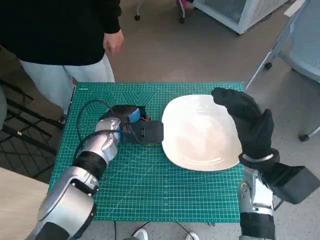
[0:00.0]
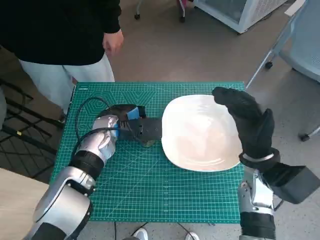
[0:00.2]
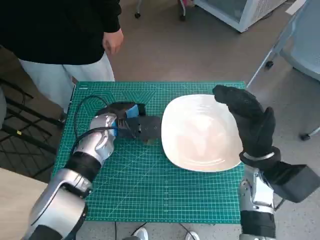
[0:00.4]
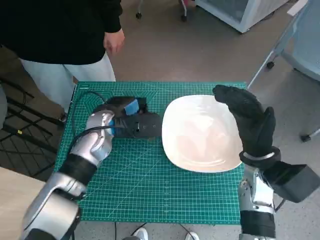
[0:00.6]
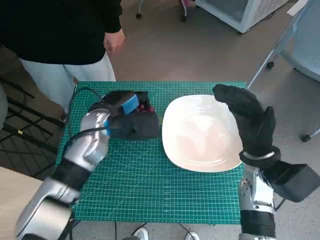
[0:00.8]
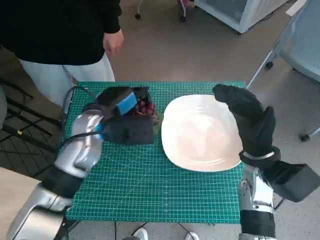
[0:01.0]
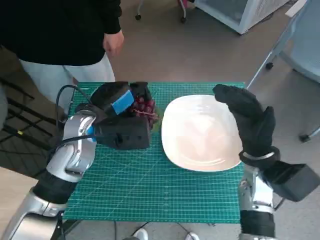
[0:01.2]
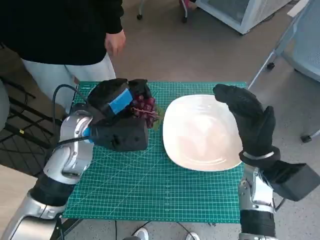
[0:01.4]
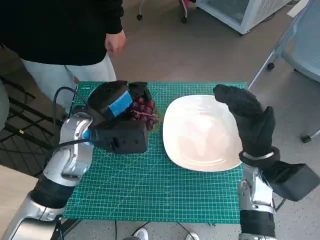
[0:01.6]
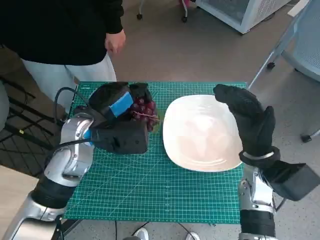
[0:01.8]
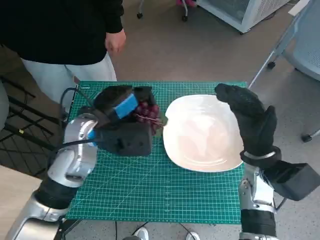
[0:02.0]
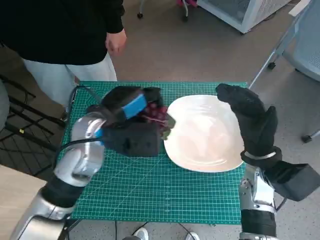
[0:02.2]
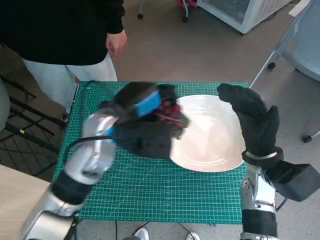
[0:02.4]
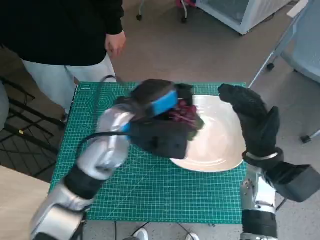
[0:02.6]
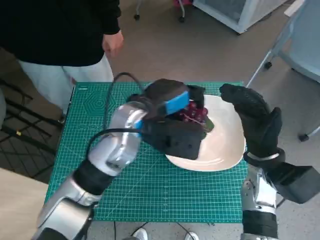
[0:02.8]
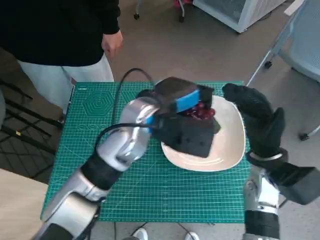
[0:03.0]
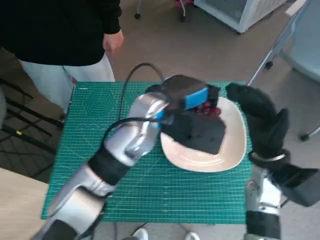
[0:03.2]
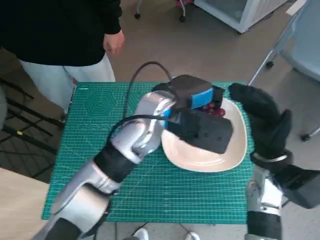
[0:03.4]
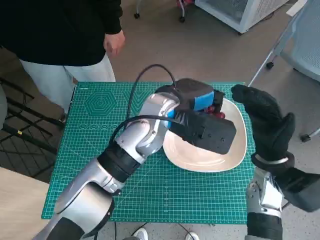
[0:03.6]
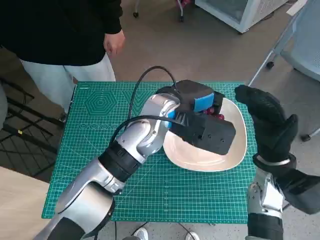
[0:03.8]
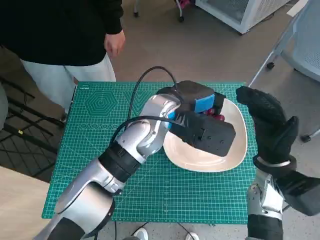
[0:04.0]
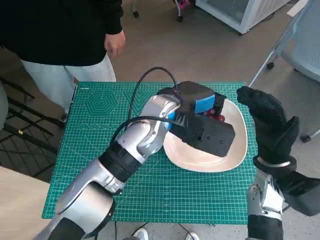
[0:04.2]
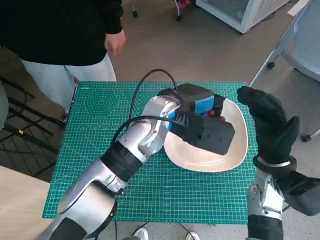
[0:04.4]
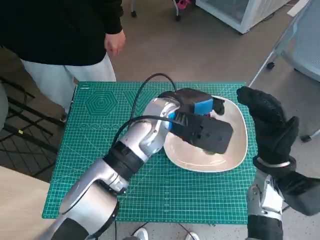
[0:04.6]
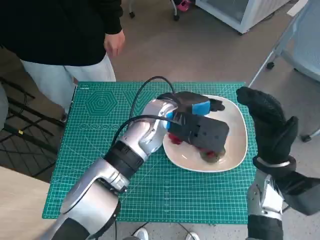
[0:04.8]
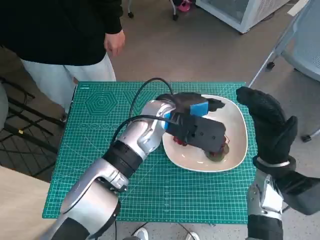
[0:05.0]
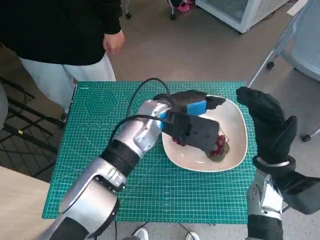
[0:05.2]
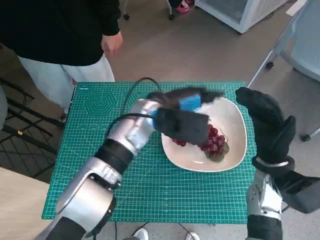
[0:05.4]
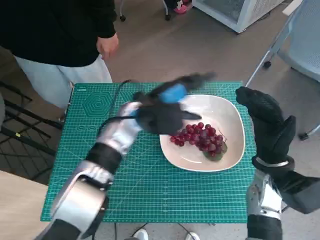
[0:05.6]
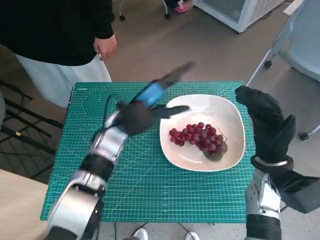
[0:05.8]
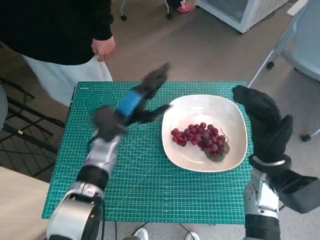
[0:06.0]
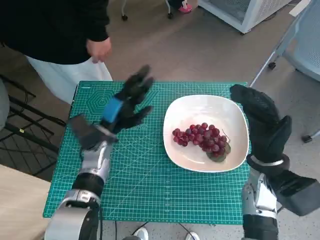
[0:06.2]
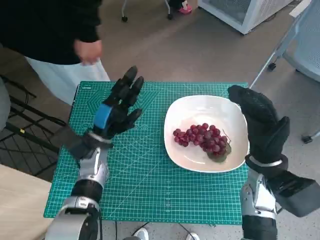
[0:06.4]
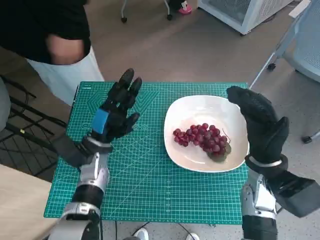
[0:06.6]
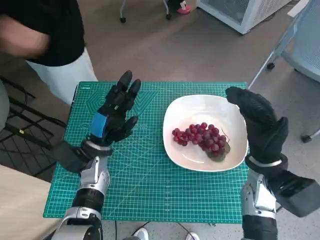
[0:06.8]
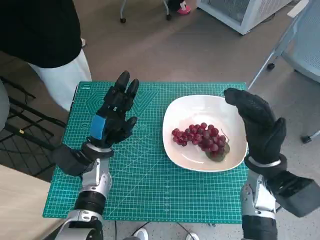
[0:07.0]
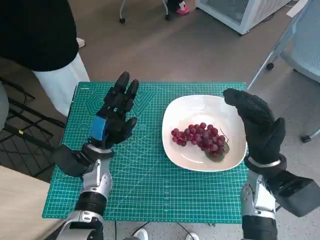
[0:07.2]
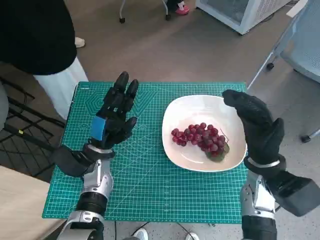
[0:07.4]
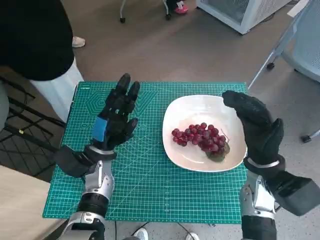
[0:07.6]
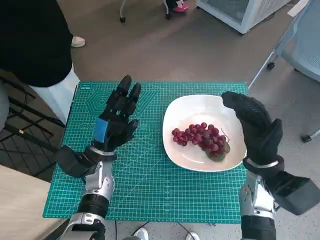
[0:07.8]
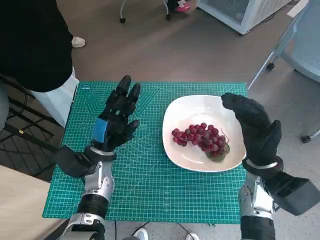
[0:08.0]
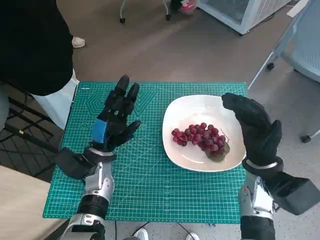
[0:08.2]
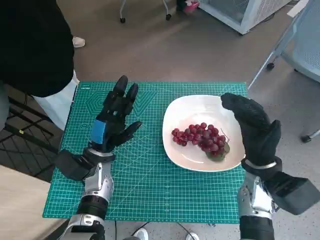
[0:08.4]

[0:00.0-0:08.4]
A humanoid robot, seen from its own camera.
Task of the whole recording: Pick up the grapes and put them on the plate.
Step, 0:00.0 to 0:05.0: Place the grapes in the plate with left hand.
0:00.0 to 0:01.4: The left hand travels upward and backward by approximately 10 cm.
0:01.4 to 0:02.8: The left hand travels to the right by some 10 cm.
0:02.8 to 0:04.2: The left hand is displaced to the right by approximately 5 cm.
0:04.2 to 0:05.6: The left hand shifts by about 5 cm.
0:05.6 to 0:07.0: The left hand travels to the left, downward and backward by some 15 cm.
0:07.0 to 0:08.4: Both hands stay about where they are.

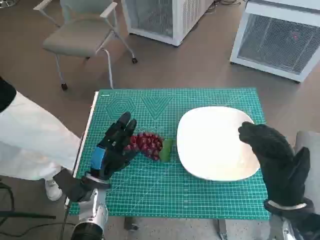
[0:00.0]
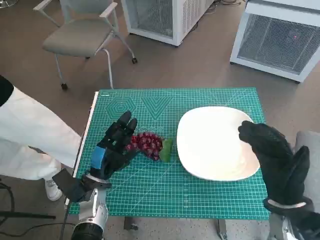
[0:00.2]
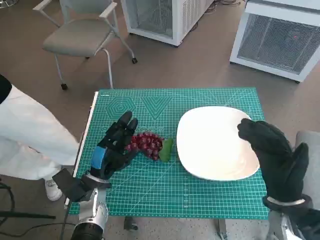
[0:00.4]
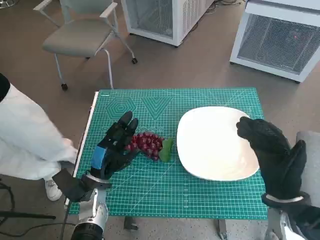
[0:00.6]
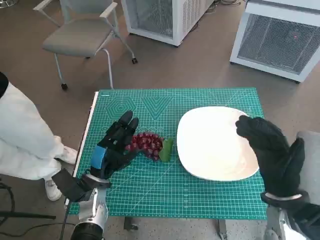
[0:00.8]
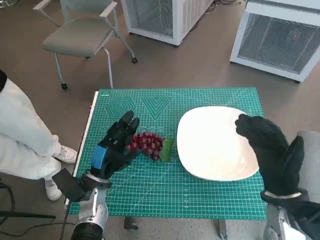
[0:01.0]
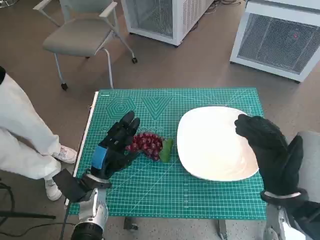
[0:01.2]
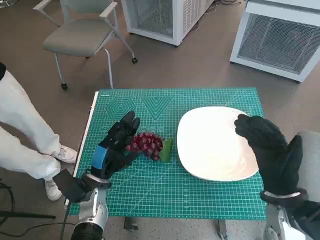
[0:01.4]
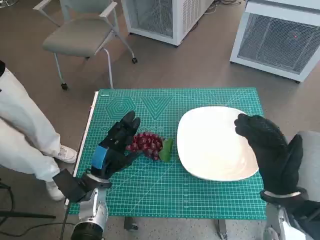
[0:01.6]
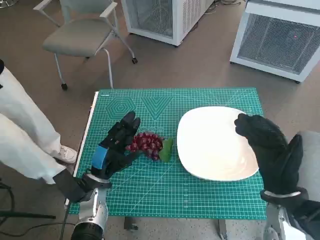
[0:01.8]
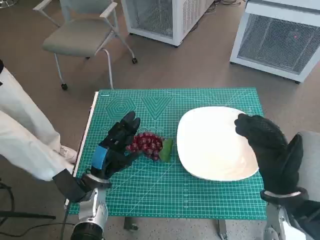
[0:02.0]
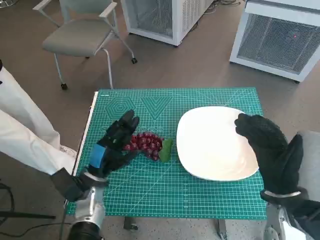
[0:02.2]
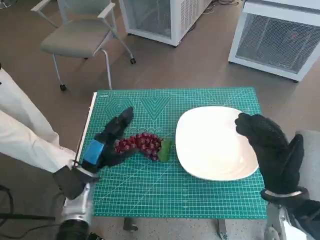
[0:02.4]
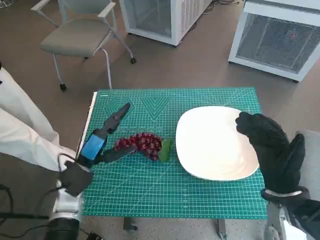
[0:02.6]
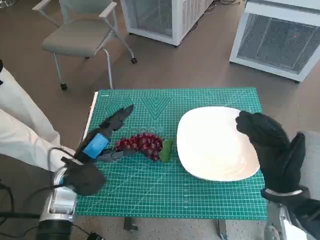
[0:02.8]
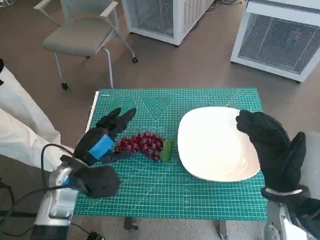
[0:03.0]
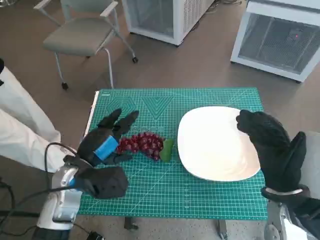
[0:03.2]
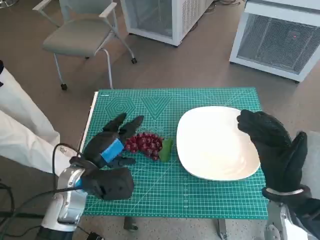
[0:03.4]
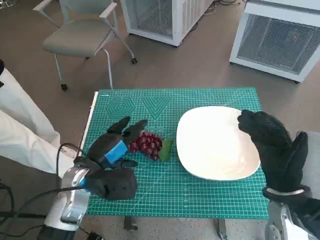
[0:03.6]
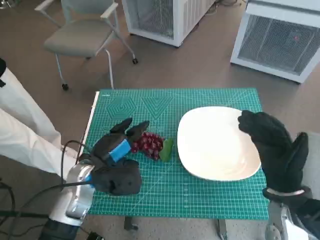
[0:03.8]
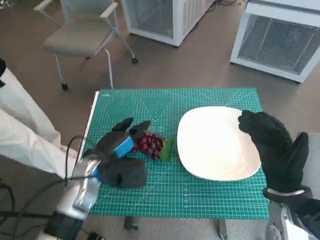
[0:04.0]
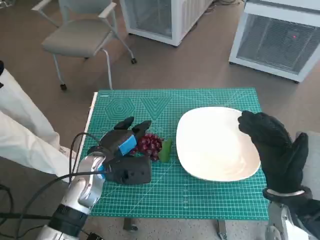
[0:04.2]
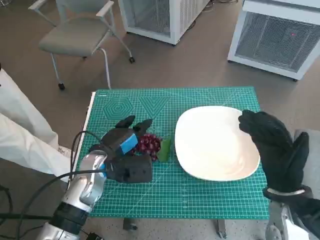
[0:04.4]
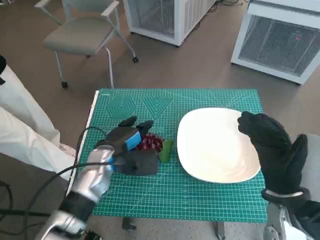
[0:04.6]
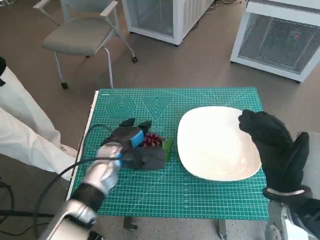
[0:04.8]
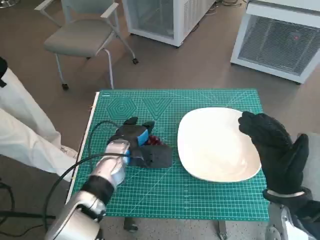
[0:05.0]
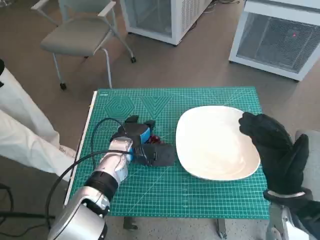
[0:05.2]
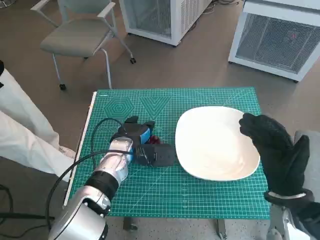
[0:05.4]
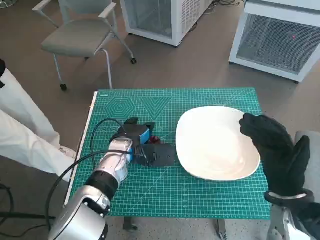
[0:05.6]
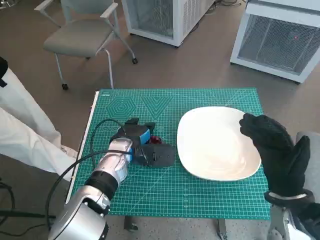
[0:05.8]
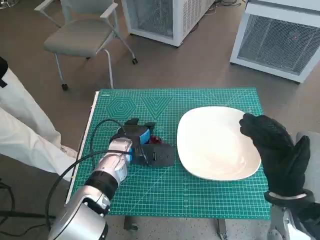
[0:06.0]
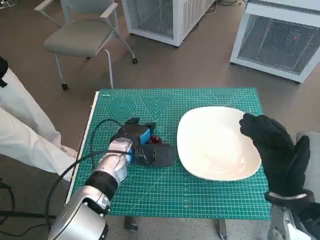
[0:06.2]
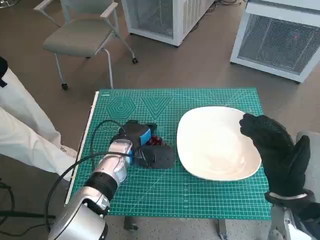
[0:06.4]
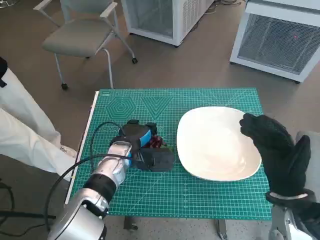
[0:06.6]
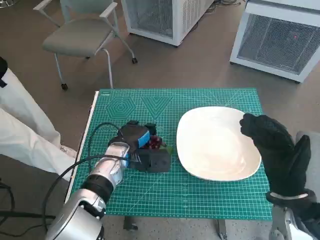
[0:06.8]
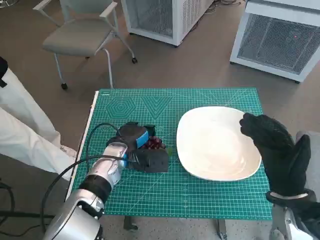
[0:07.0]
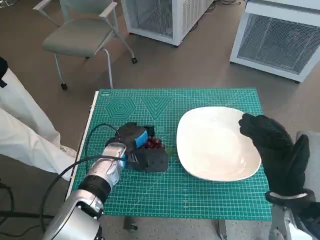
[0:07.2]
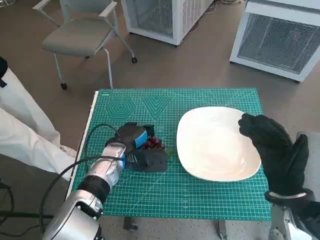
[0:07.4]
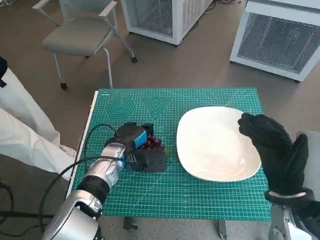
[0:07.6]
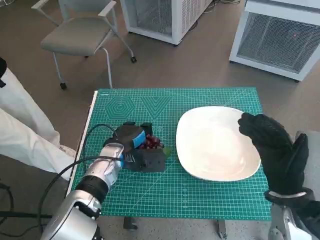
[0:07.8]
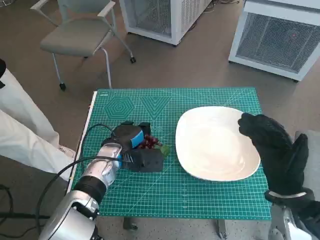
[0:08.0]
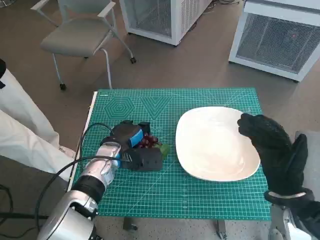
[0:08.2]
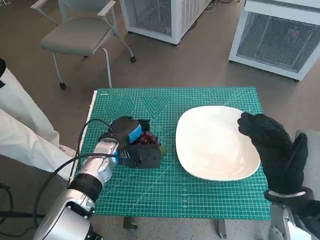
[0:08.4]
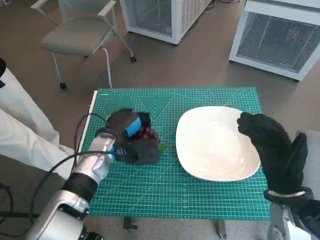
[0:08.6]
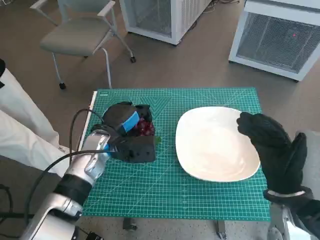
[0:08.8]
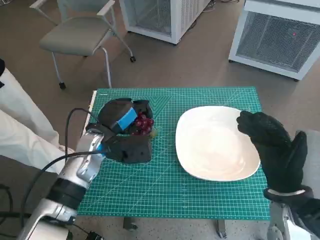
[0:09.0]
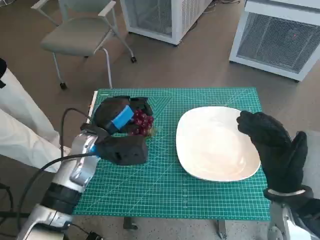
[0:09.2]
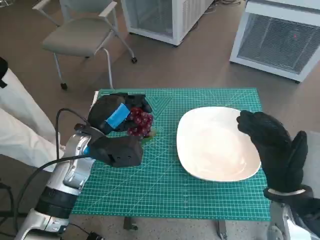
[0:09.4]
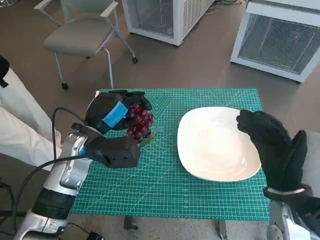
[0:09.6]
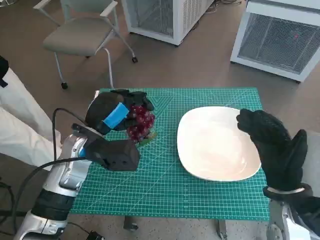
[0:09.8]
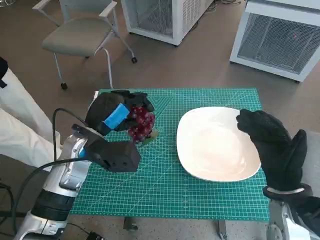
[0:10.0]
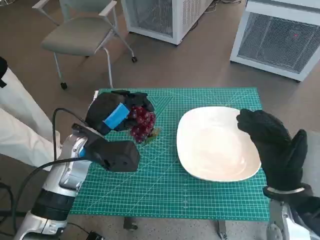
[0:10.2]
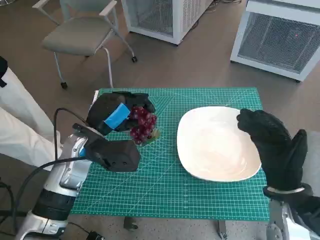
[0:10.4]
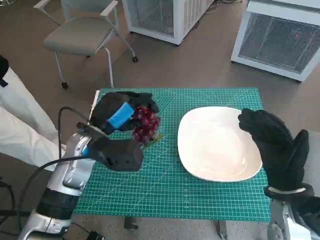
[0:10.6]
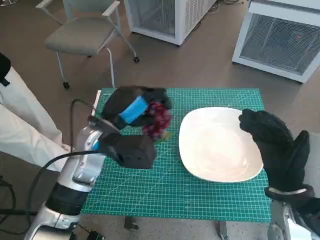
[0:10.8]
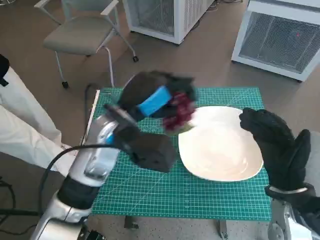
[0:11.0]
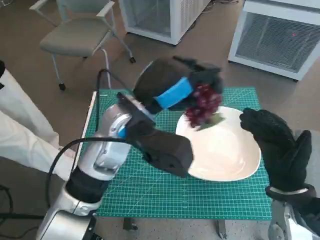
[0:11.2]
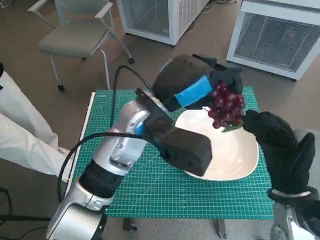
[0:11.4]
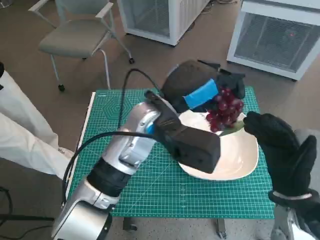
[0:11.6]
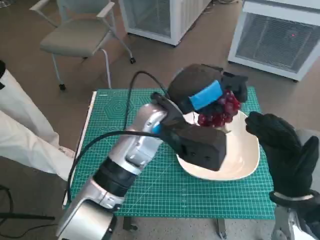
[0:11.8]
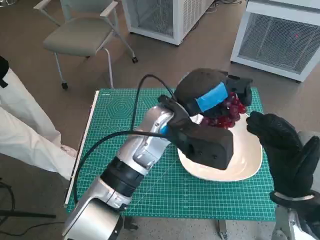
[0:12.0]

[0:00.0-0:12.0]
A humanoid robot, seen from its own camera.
Task of the whole recording: Pick up the grapes and put them on the plate.
Step, 0:00.0 to 0:07.4: Grasp the grapes with left hand.
0:01.6 to 0:03.0: The left hand is displaced upward by roughly 10 cm.
0:03.0 to 0:04.4: The left hand shifts by about 5 cm.
0:04.4 to 0:06.0: The left hand ends up roughly 5 cm from where it was.
0:06.0 to 0:07.6: The hands make only small movements.
0:07.6 to 0:09.0: The left hand goes roughly 5 cm upward.
0:09.0 to 0:10.4: The hands stay close to where they were, moving slightly.
0:10.4 to 0:12.0: The left hand goes about 15 cm to the right.

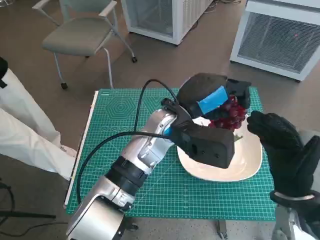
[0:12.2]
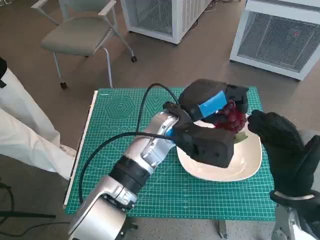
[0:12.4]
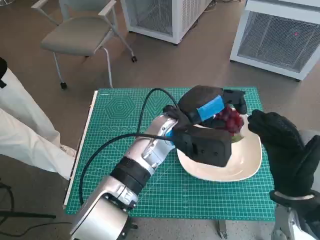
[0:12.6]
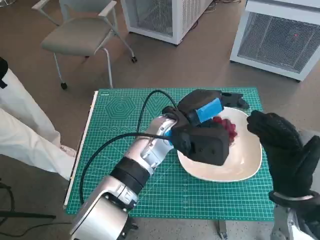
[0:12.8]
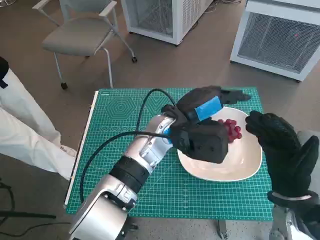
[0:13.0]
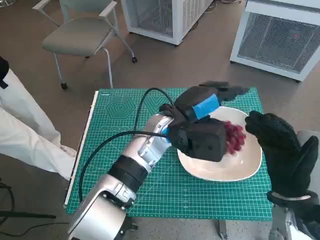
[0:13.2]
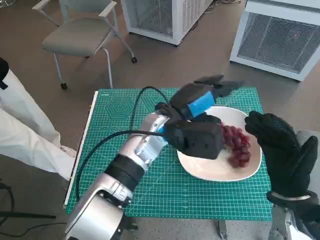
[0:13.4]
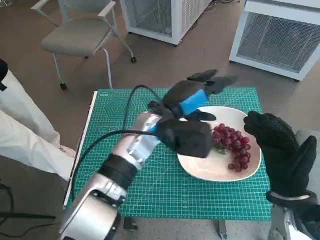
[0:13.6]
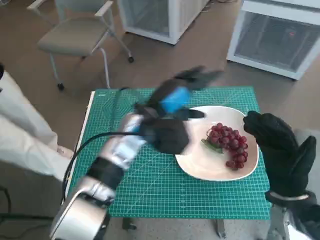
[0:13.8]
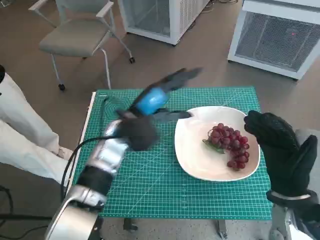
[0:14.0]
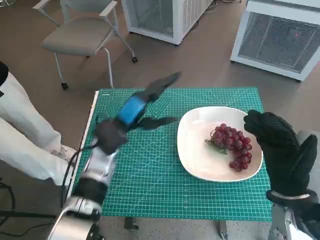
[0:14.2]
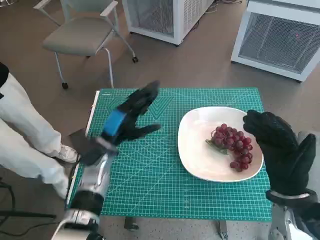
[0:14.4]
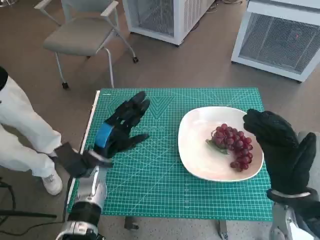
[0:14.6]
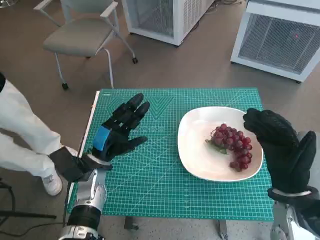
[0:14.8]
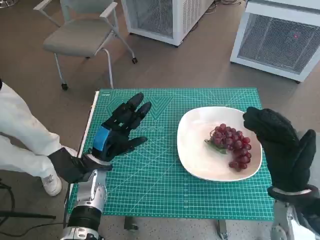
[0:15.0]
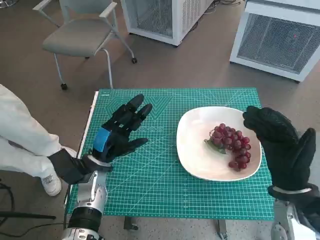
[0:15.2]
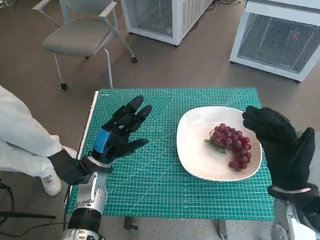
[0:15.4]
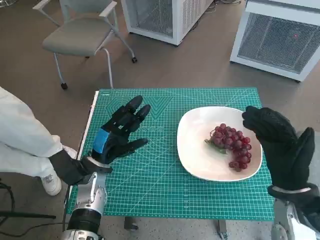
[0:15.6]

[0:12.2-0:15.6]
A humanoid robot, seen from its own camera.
Task of the whole recording: Pick up the grapes and put them on the plate.
0:12.2 to 0:13.8: The left hand travels to the left by roughly 5 cm.
0:13.8 to 0:15.6: The left hand shifts about 20 cm to the left, downward and backward.
